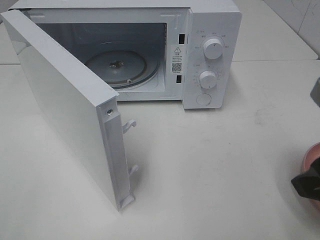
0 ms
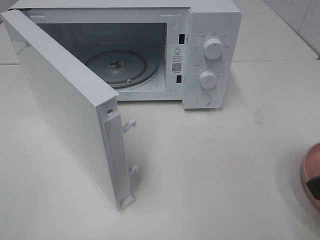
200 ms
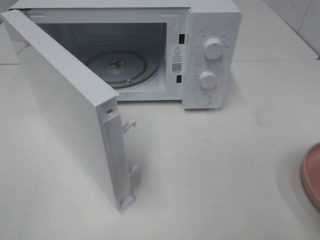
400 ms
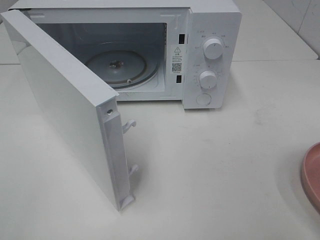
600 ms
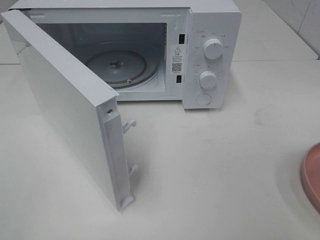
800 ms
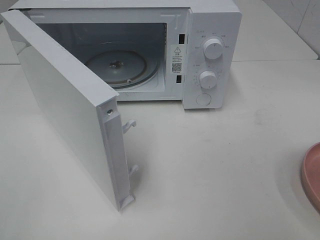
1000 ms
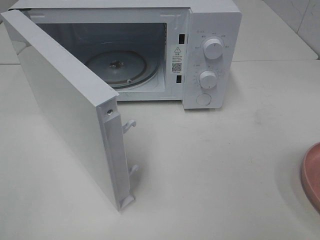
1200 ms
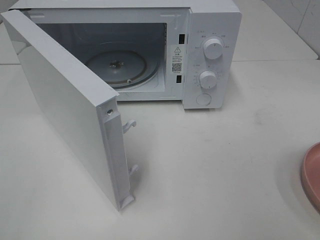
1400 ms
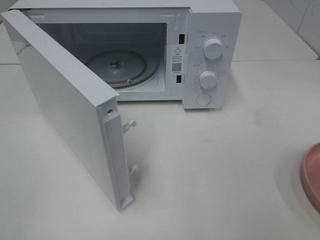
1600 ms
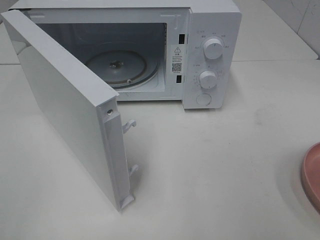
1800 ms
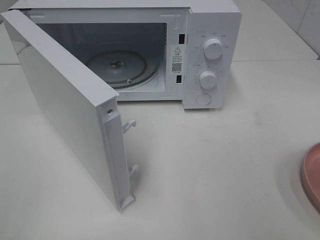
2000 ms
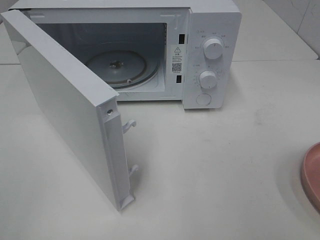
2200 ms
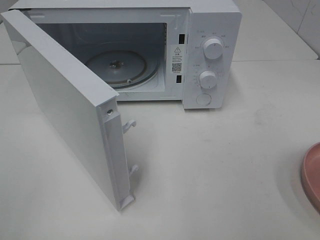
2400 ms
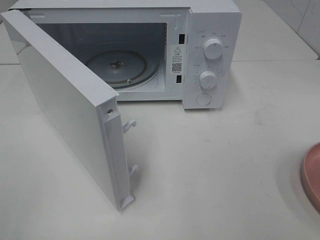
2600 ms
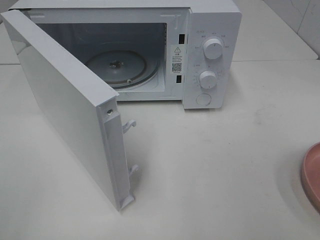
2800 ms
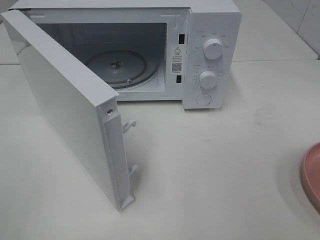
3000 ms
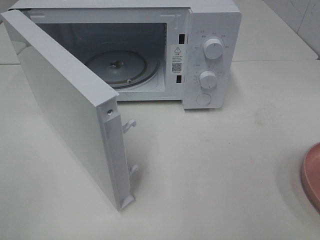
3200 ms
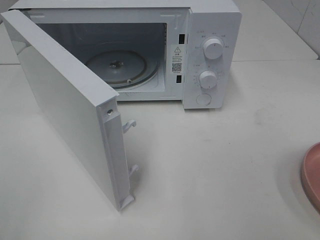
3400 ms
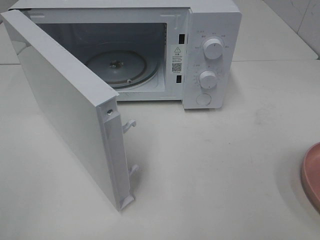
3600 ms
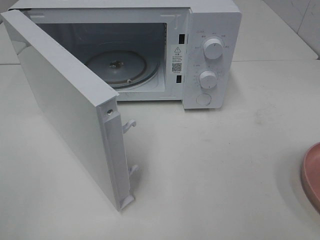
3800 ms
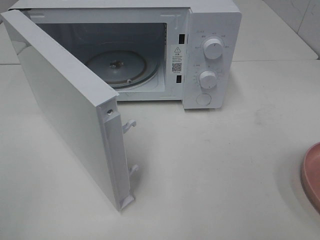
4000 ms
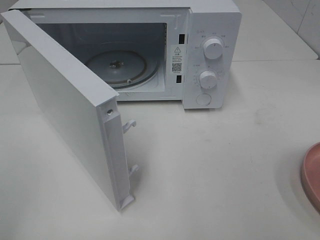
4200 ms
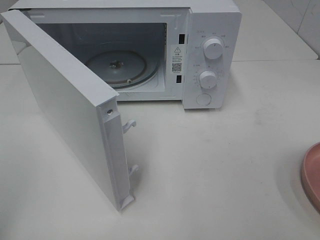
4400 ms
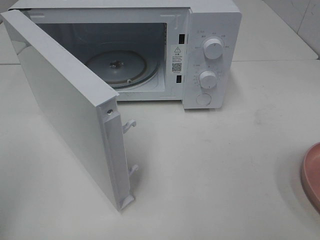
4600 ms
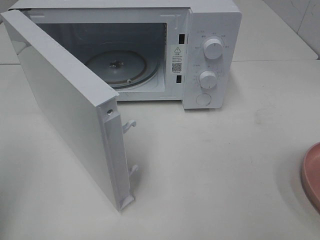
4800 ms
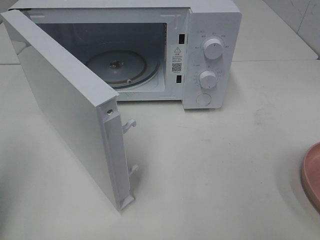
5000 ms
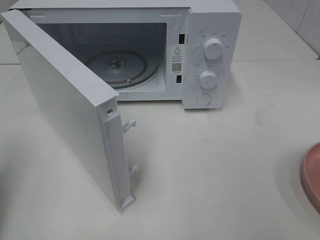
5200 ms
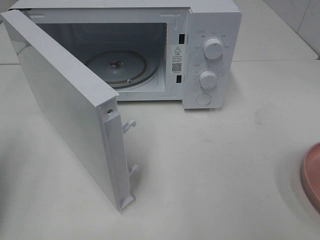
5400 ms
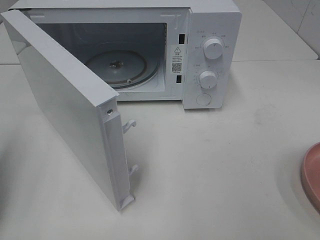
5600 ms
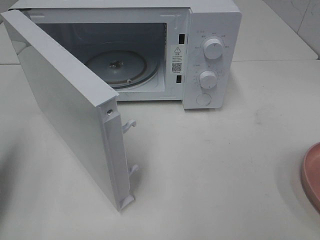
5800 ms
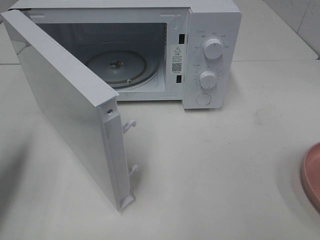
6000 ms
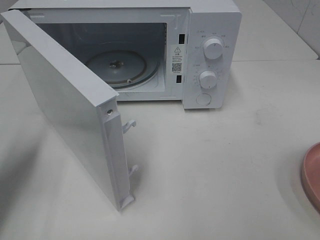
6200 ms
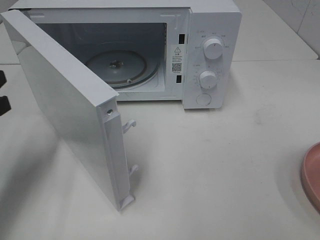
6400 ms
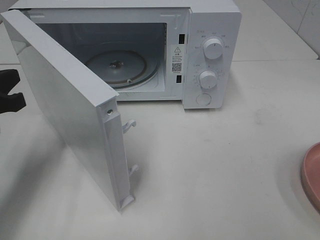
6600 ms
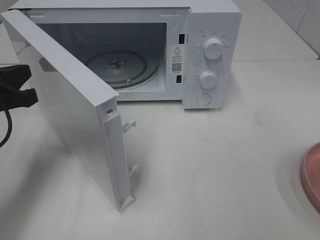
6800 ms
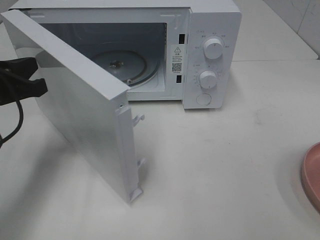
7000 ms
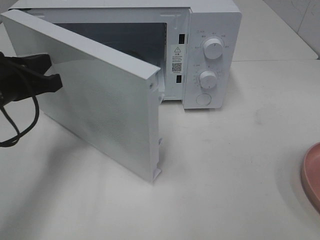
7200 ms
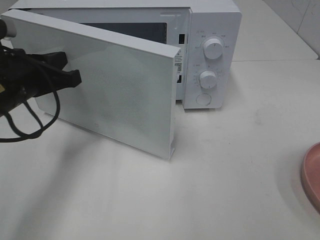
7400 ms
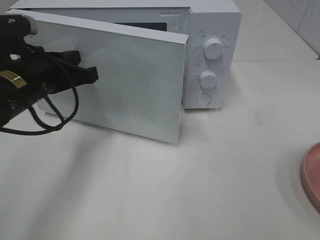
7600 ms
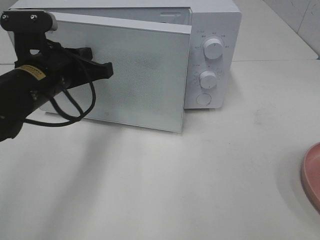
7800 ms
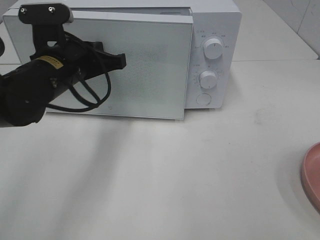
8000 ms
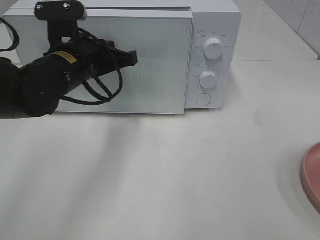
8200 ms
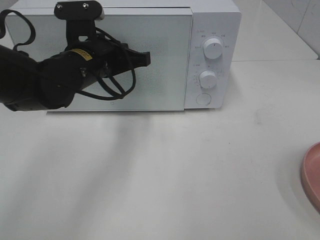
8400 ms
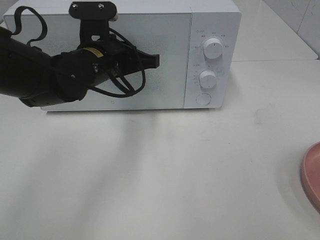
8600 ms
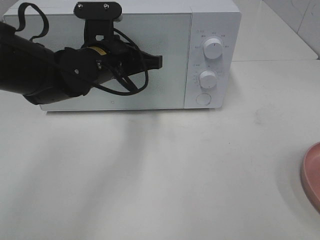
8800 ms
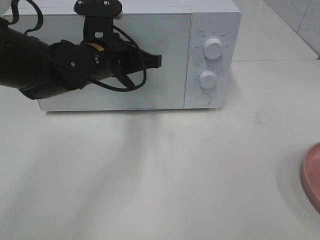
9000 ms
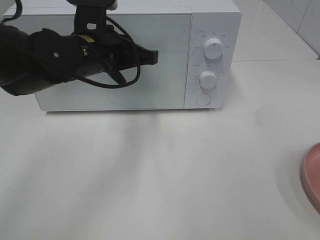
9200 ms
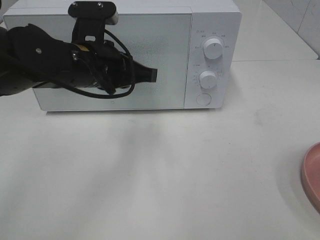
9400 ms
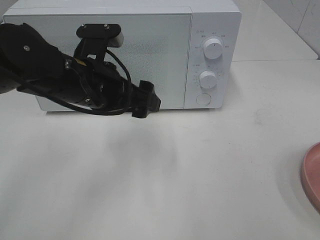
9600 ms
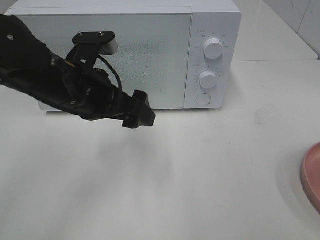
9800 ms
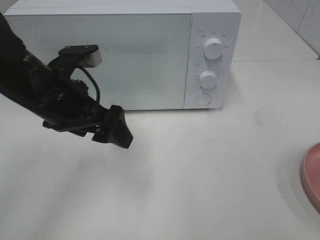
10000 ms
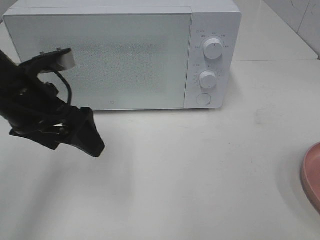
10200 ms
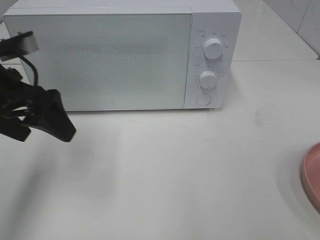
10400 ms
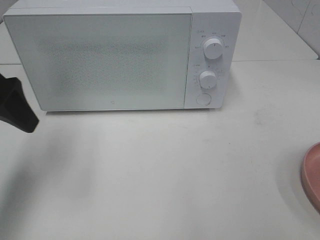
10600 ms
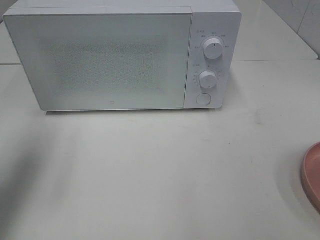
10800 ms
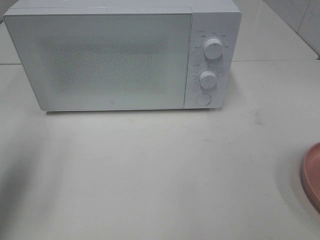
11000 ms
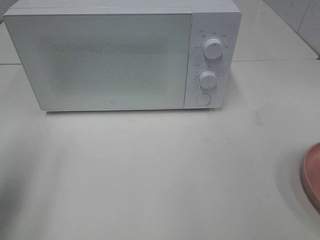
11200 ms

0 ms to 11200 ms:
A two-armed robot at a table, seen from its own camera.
Task of the whole recording: Heat the burger.
Step, 0 ms to 9000 ms: Left hand: close the microwave door.
0 ms to 1600 ms: The right gripper is displaced backward and to the right by approximately 15 cm.
1600 ms to 3200 ms: Both grippers stay about where they are.
4800 ms to 6400 ms: The left gripper shifts some 20 cm forward and downward.
6400 ms to 8000 ms: The left gripper moves to the right and forward, roughly 15 cm.
8000 ms to 9600 ms: The left gripper shifts by approximately 5 cm, and opens its fingers.
9600 ms to 11200 ms: The left gripper travels to the left and backward by roughly 25 cm.

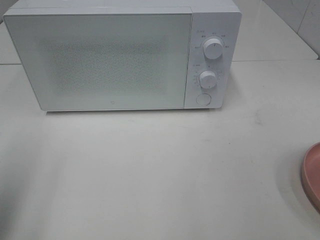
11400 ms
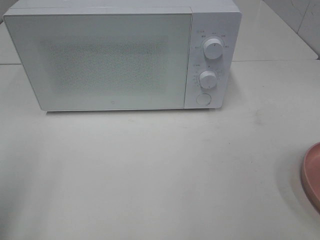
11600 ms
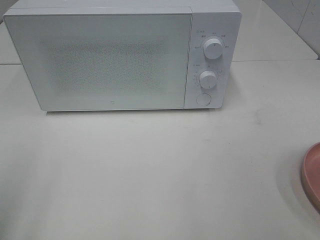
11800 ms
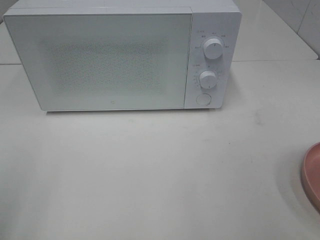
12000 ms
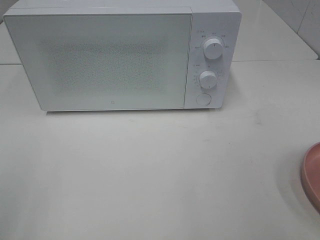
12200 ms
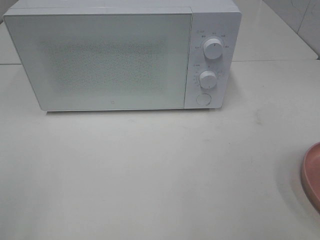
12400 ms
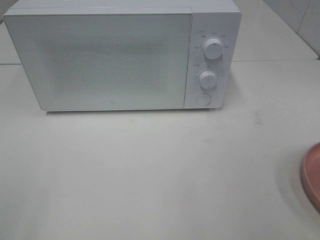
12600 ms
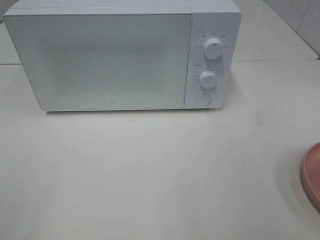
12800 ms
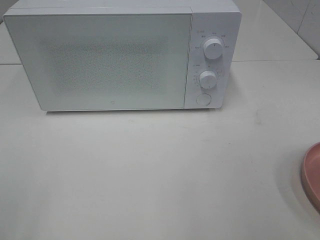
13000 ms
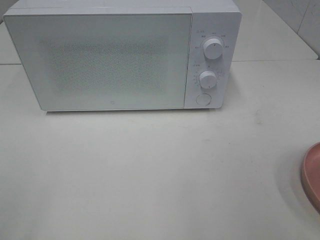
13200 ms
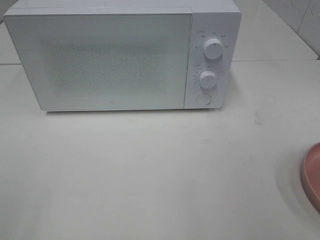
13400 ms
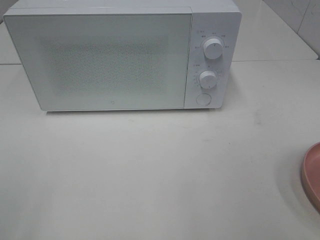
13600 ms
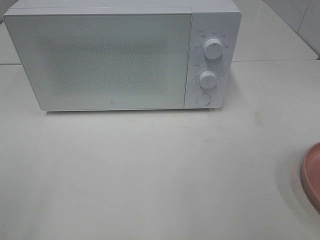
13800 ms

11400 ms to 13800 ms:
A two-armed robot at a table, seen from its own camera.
Task of the whole recording: Heat the burger.
11400 ms to 12600 ms: The left gripper heads backward, covering about 10 cm.
12600 ms to 13800 ms: Neither gripper changes place.

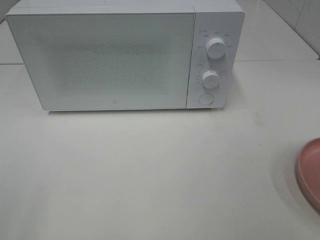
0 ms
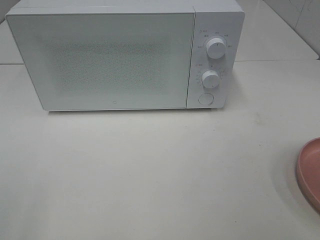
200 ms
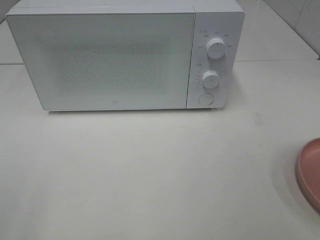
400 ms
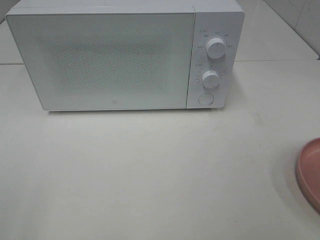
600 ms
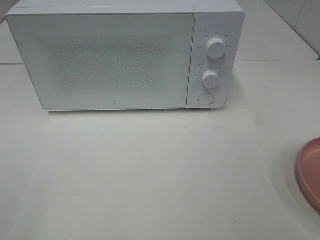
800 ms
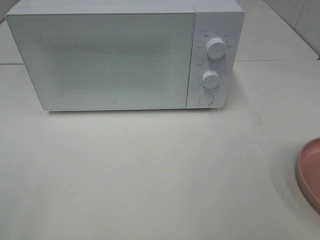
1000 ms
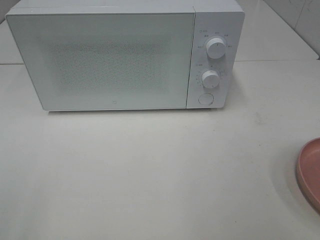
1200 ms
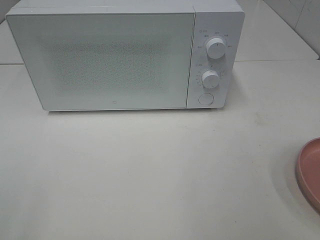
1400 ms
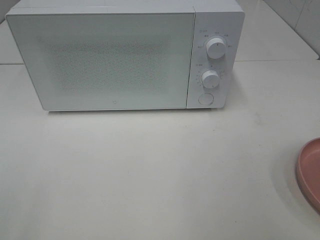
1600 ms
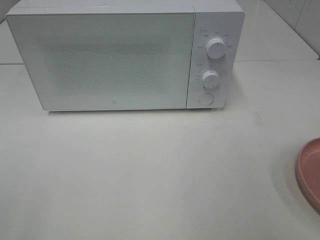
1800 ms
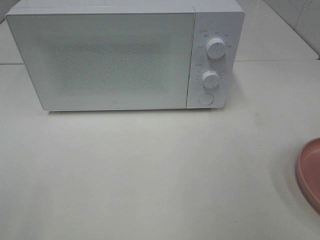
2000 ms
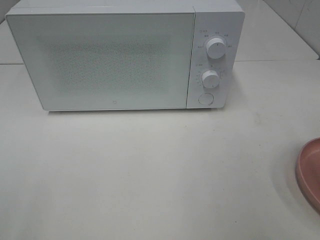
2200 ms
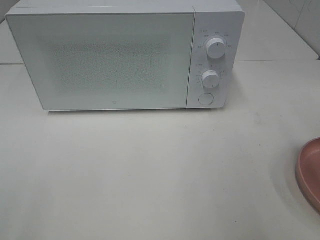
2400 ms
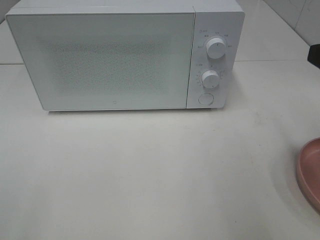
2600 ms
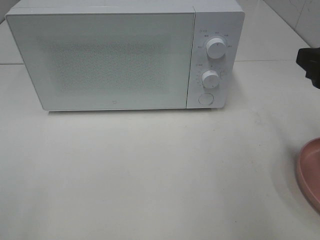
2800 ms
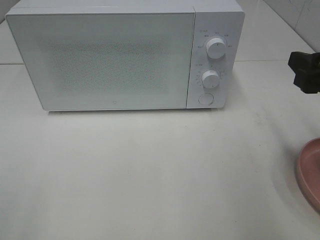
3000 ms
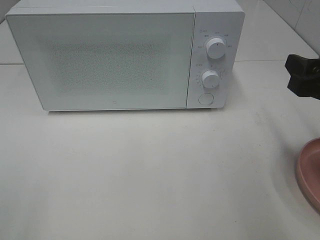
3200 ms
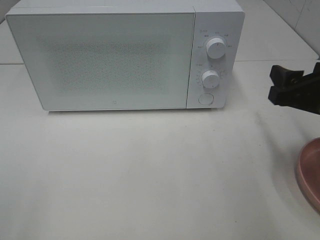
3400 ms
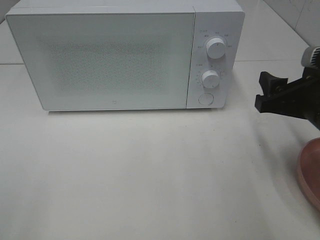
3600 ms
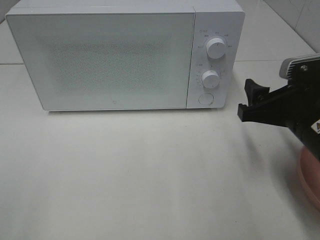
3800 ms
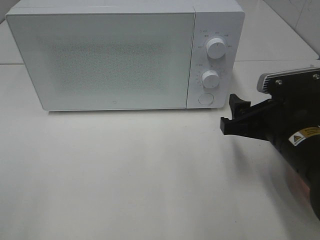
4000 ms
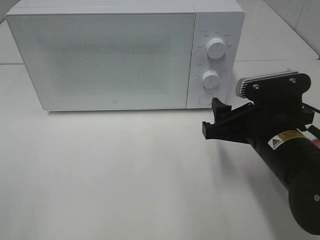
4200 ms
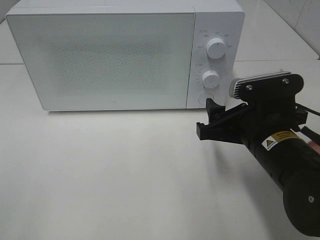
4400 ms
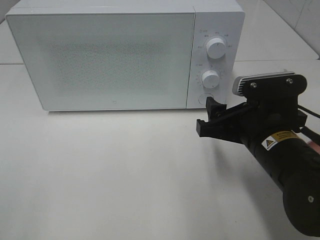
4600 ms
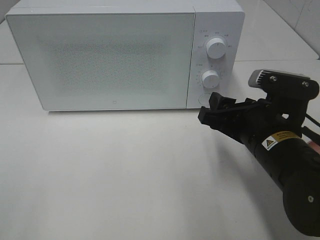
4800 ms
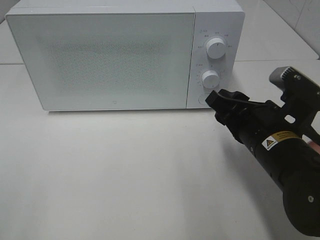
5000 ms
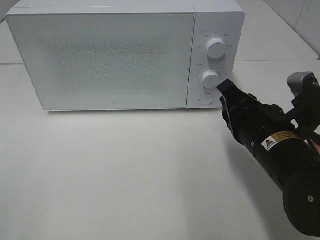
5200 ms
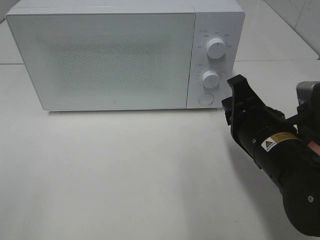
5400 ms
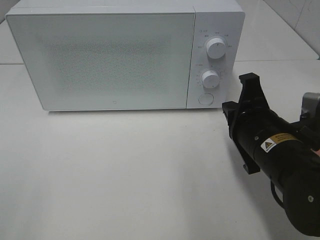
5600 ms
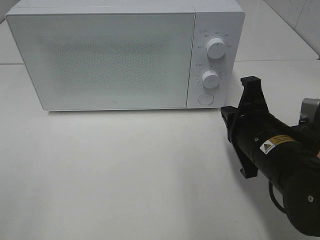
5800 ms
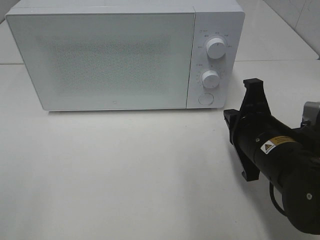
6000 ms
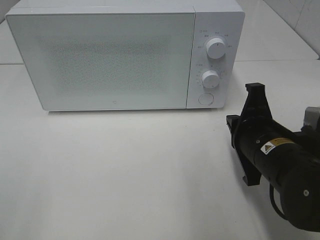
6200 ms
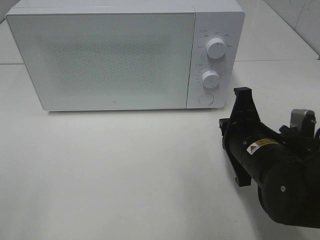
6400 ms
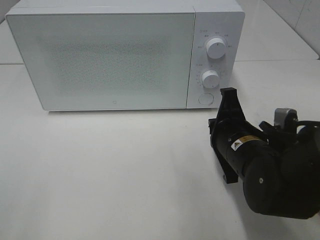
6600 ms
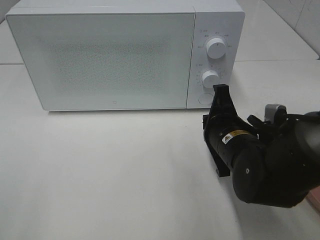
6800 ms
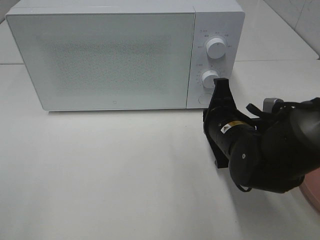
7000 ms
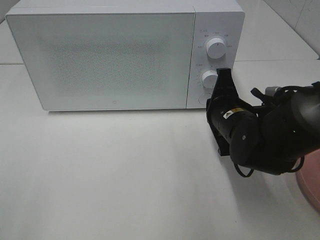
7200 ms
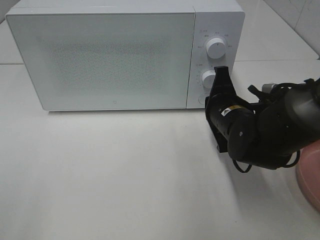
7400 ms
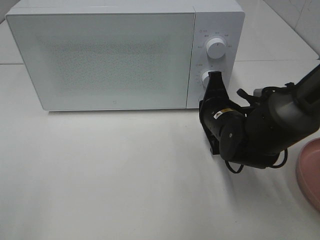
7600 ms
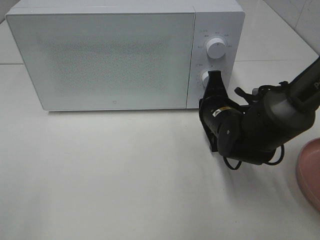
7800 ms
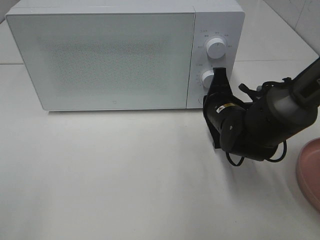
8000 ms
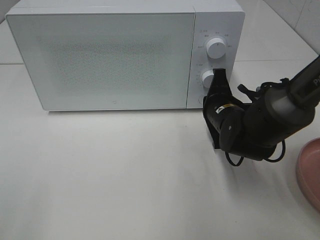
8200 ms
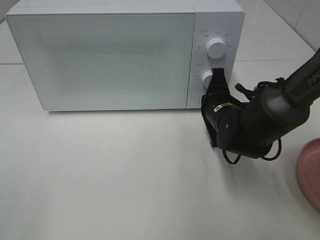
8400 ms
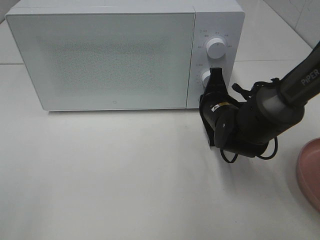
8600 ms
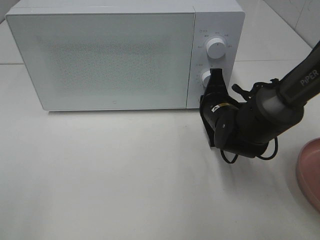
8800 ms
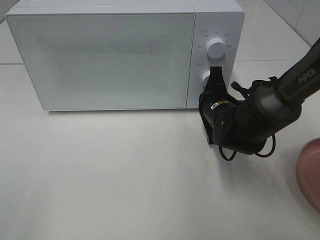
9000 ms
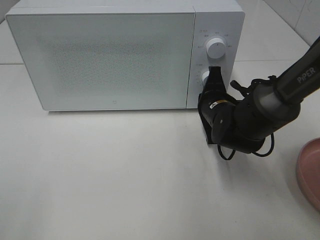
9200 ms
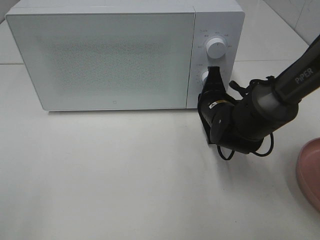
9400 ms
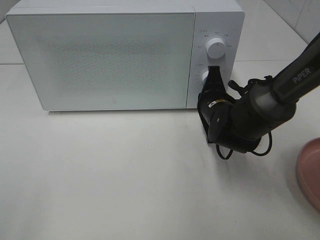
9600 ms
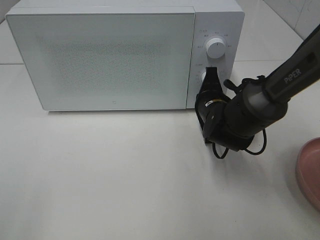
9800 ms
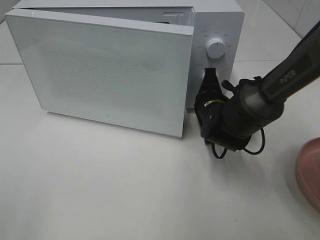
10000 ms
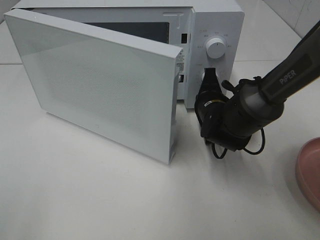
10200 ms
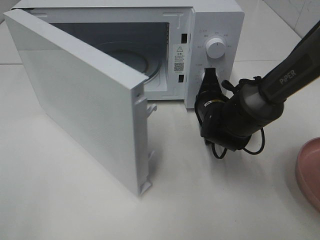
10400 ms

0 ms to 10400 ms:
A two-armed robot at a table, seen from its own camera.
Task of the whole recording: Heat the burger.
1400 ms to 3000 ms: The right gripper heads forward and downward, covering roughly 20 cm.
3000 ms to 4400 ms: The right gripper heads to the left and downward, covering about 15 cm.
4400 ms to 6000 ms: The right gripper closes up.
6000 ms to 7400 ms: The right gripper shifts some 10 cm forward.
7400 ms to 9000 ms: The grippers move only a little.
